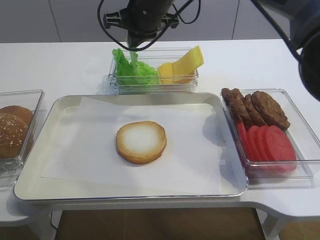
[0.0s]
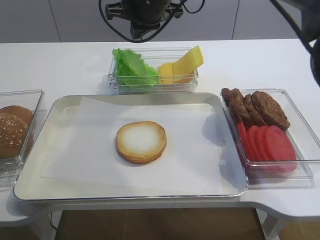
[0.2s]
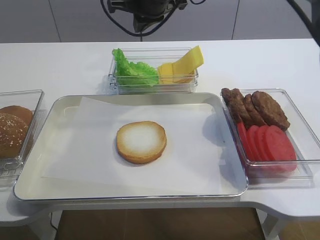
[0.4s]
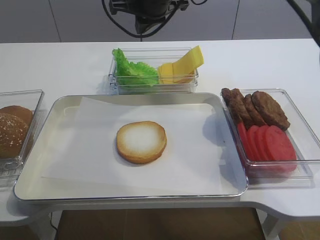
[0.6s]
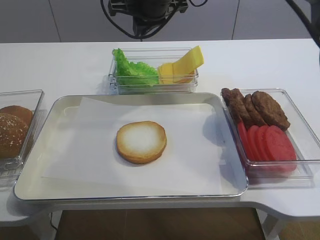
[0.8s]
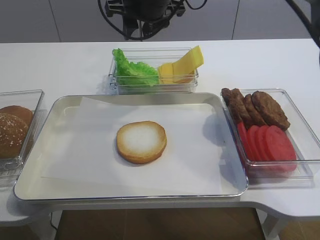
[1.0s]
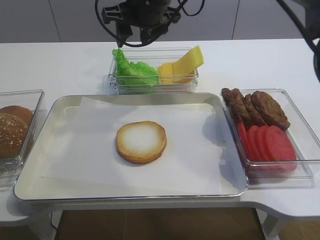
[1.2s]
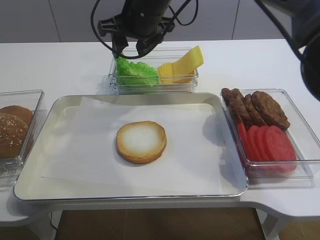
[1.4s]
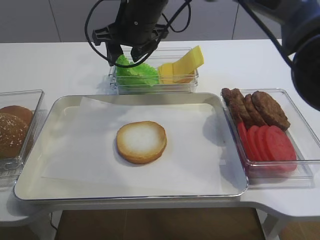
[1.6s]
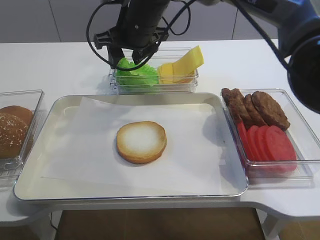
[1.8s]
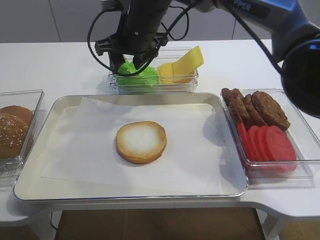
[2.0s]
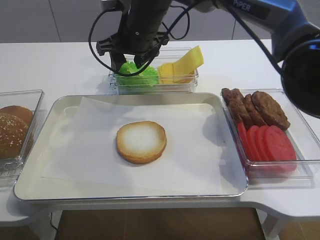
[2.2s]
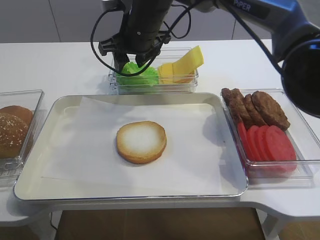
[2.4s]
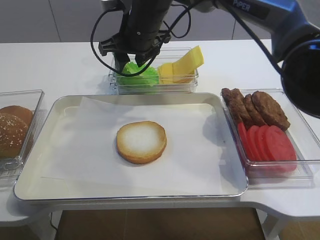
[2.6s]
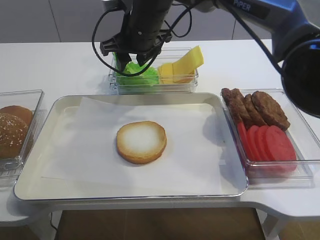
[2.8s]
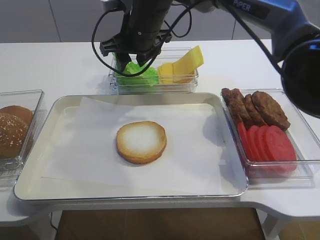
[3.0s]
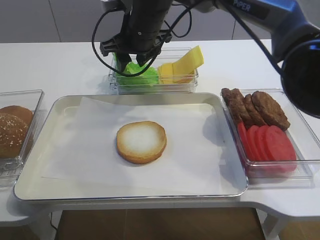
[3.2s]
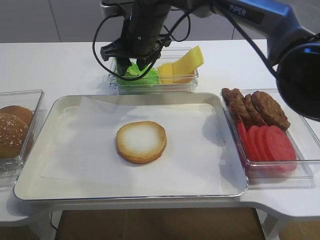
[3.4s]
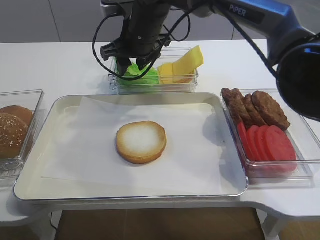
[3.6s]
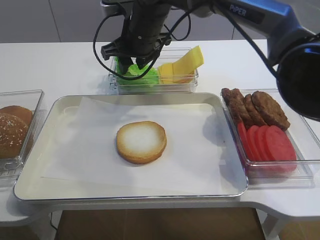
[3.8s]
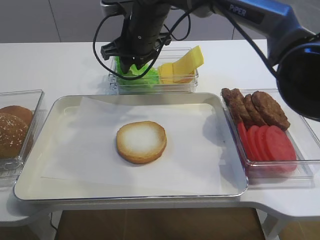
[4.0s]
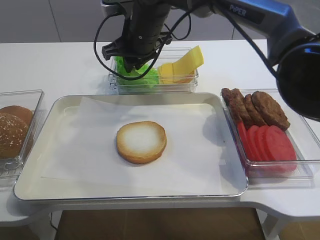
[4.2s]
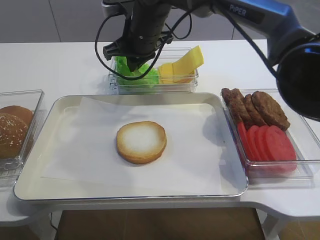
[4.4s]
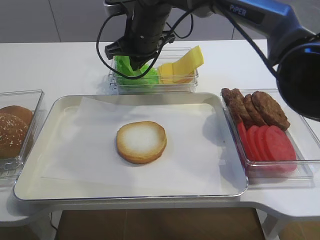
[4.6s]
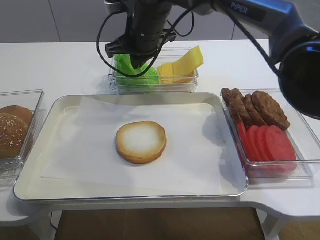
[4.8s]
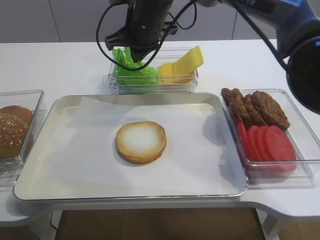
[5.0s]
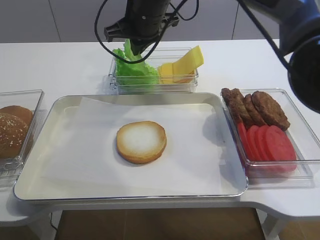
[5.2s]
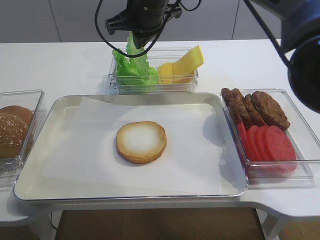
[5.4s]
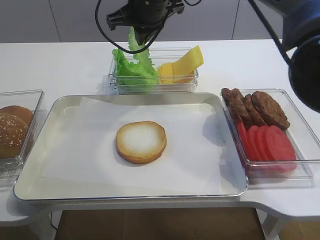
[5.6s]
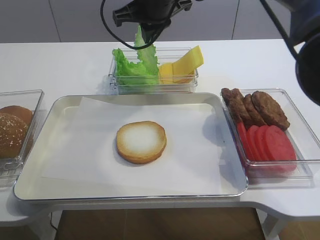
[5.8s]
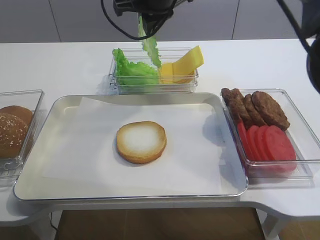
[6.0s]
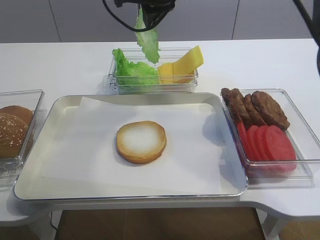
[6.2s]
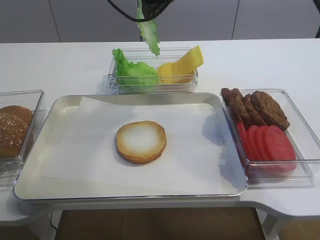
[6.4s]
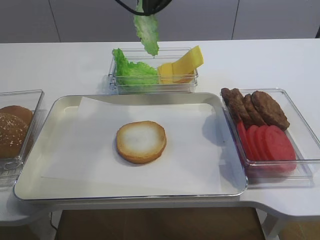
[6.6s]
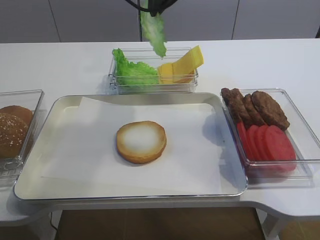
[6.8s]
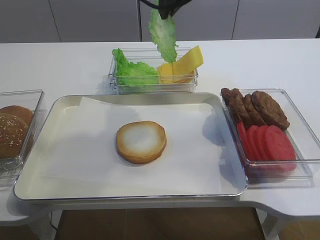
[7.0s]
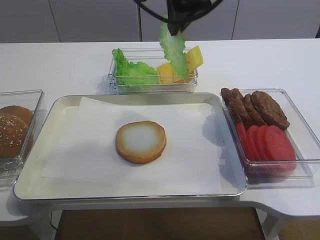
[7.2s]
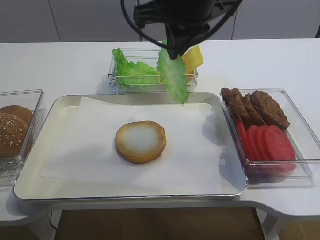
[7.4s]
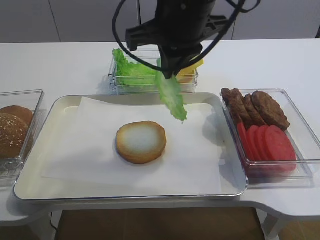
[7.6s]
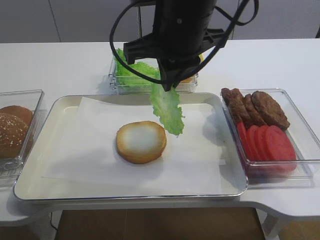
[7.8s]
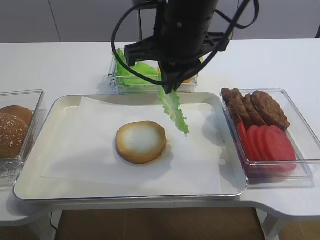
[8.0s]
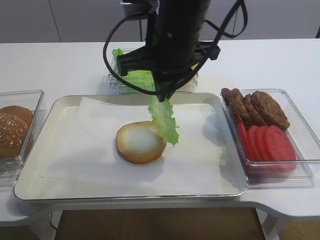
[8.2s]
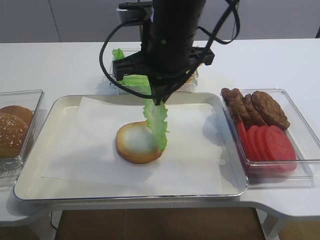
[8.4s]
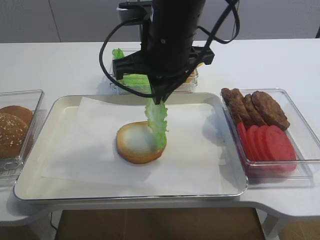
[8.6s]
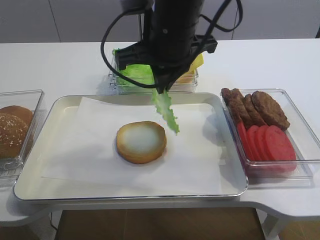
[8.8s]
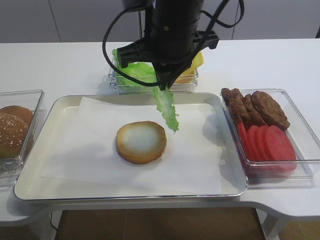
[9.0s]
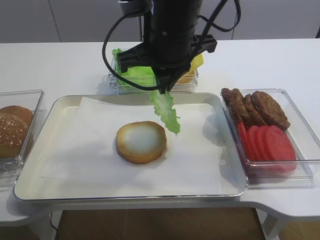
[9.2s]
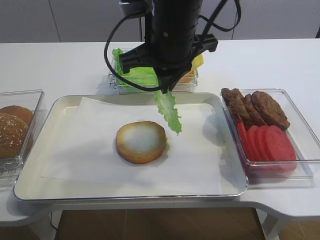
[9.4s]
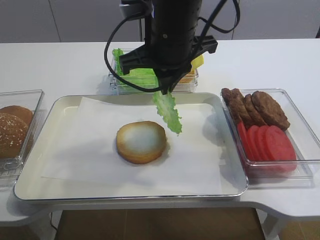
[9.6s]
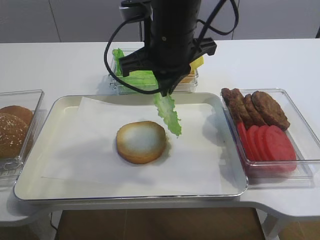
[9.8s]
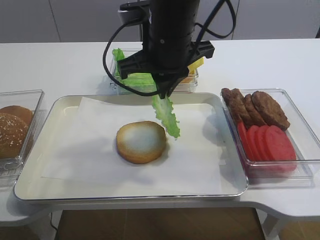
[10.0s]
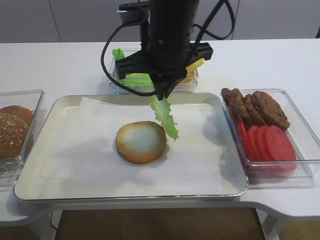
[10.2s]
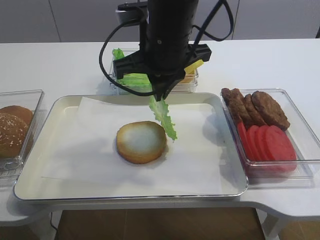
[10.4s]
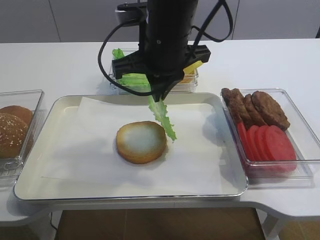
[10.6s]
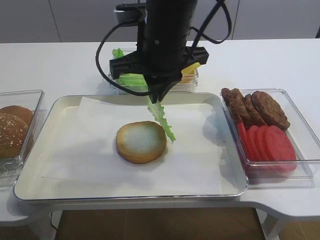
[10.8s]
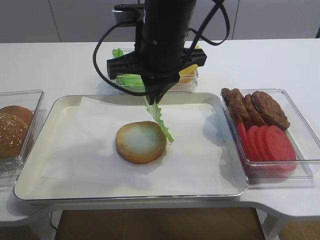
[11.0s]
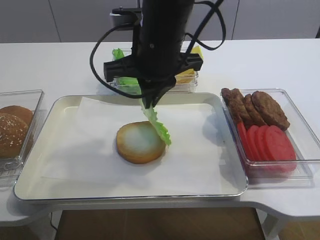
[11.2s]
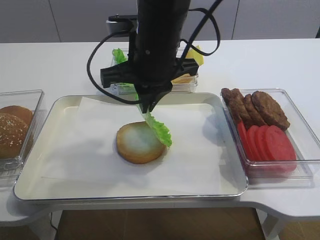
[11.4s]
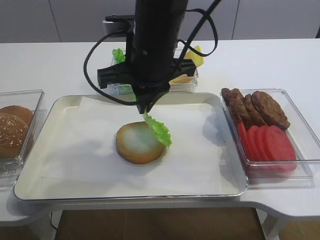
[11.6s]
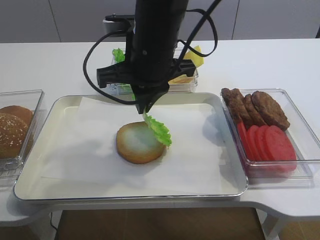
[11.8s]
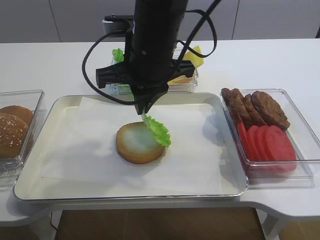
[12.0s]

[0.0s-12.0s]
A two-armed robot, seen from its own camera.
Step, 0.0s to 6.2s: Pick up the lettuce leaf with the right gripper.
0.0s to 1.6s: The right gripper opens.
1.6s to 3.0s: The grippers move only a little.
3.0s to 4.4s: The right gripper closes.
4.4s to 6.0s: The right gripper goes about 10 cm upward.
6.0s to 7.6s: The right gripper is displaced backward by approximately 10 cm.
7.6s to 10.4s: The grippers move only a little.
10.4s to 12.0s: The grippers make only small movements.

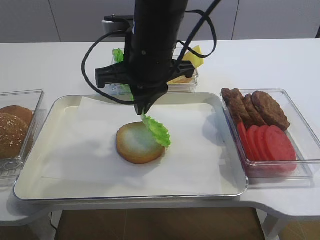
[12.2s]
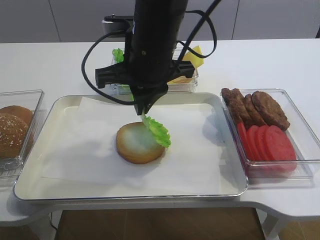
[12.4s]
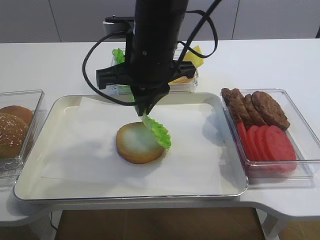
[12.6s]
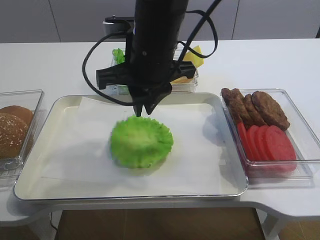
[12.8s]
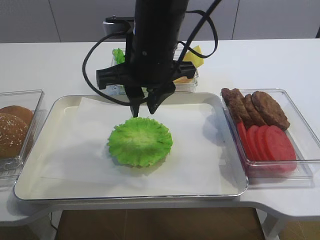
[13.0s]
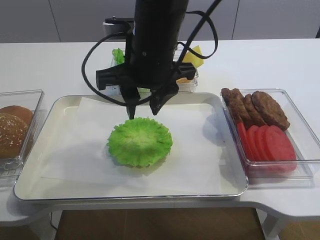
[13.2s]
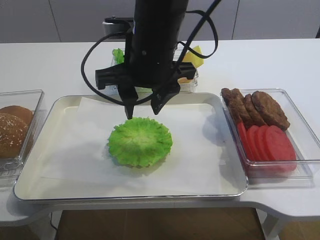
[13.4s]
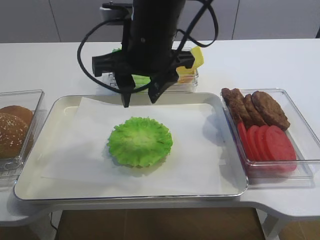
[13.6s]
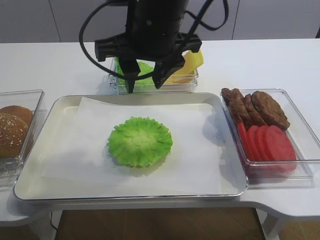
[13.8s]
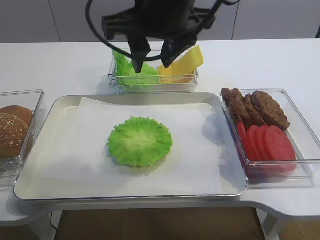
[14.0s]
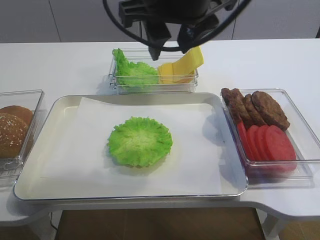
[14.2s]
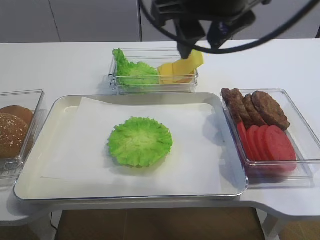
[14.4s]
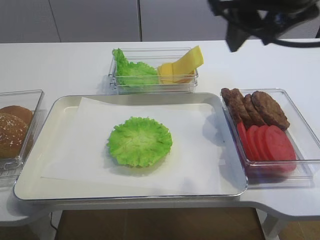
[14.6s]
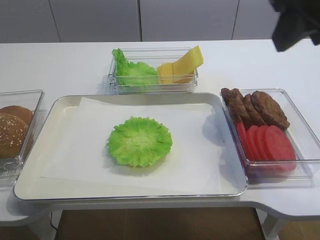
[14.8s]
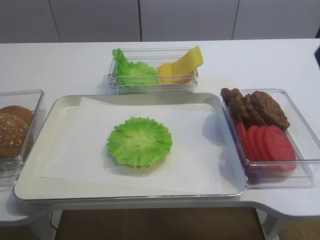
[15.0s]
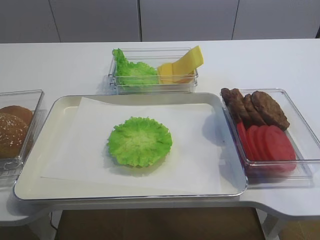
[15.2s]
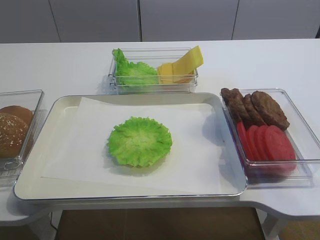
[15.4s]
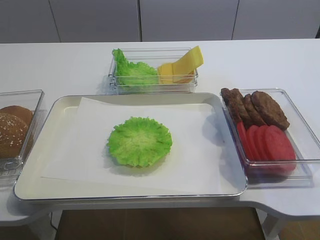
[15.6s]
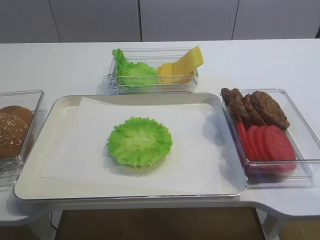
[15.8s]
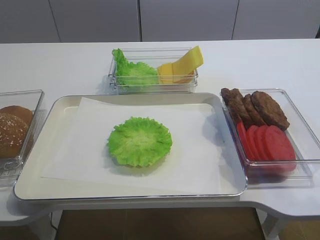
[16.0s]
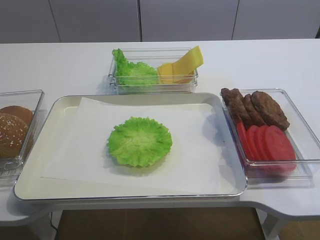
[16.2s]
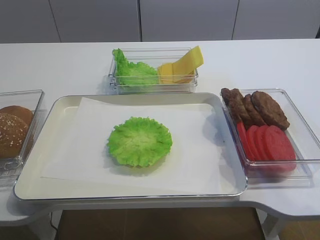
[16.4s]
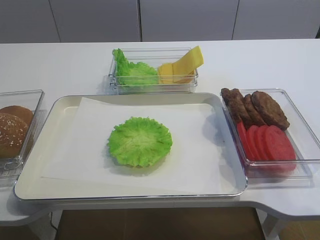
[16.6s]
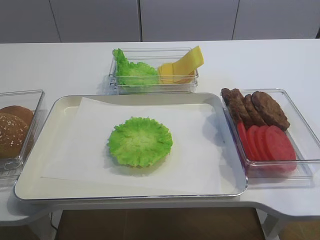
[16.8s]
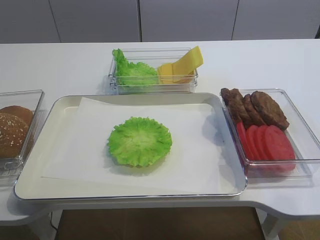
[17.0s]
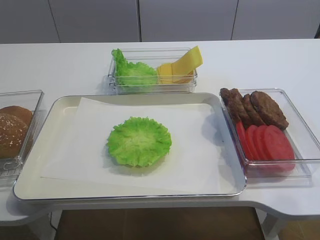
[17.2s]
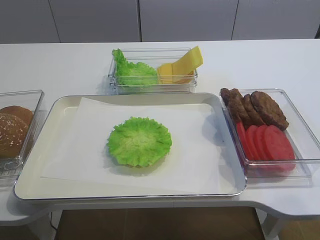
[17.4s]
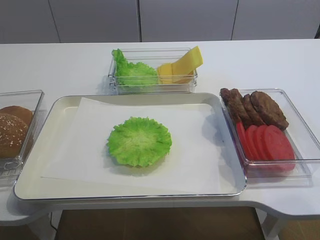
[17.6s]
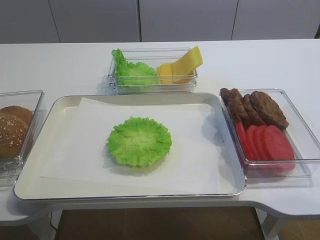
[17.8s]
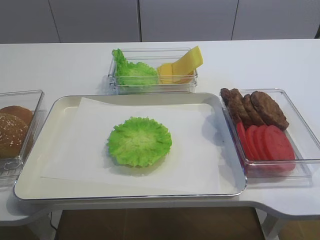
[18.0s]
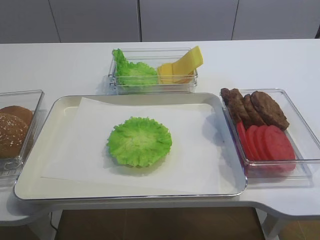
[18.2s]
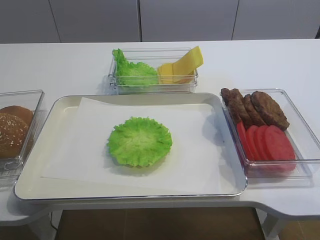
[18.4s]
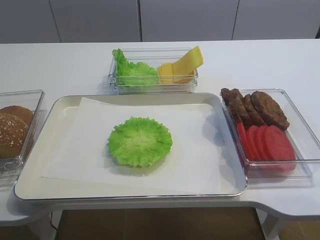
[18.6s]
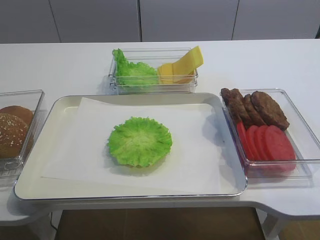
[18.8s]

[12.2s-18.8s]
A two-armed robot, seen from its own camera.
12.2s to 13.8s: The right gripper opens its fingers.
13.8s to 15.4s: The right gripper is displaced to the right and backward by approximately 35 cm.
15.4s to 17.2s: The right gripper shifts approximately 15 cm downward and backward, and closes.

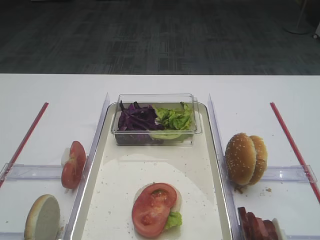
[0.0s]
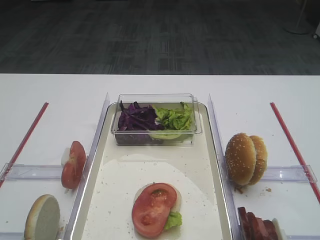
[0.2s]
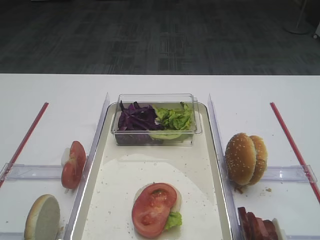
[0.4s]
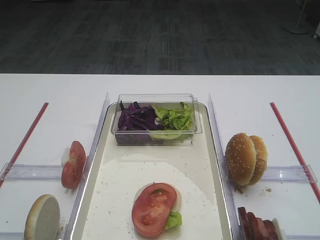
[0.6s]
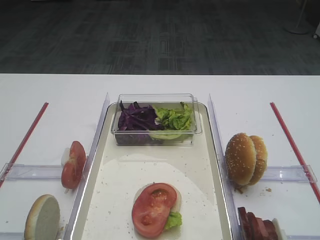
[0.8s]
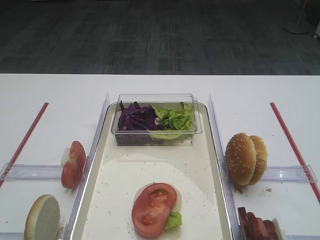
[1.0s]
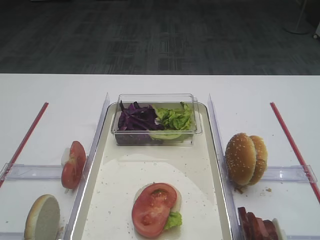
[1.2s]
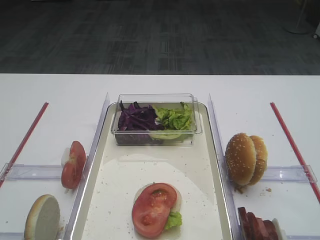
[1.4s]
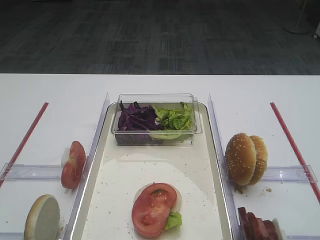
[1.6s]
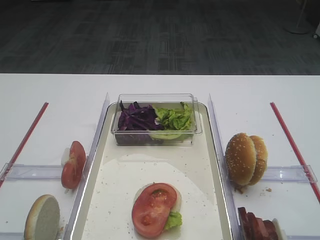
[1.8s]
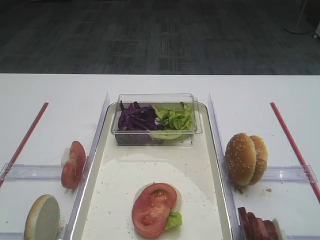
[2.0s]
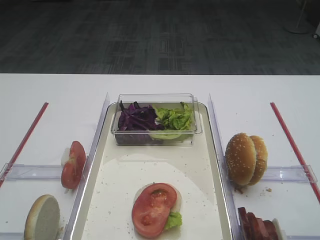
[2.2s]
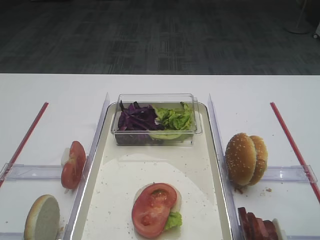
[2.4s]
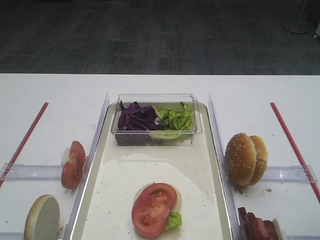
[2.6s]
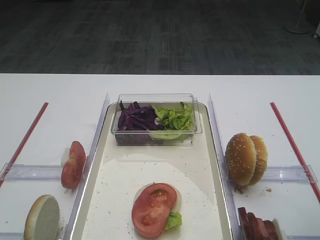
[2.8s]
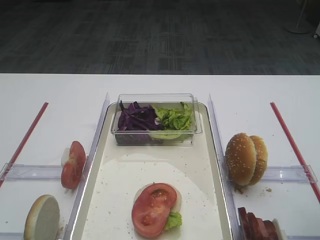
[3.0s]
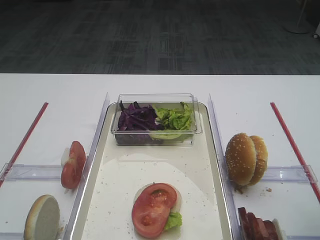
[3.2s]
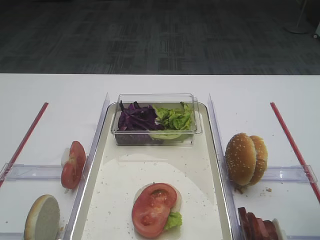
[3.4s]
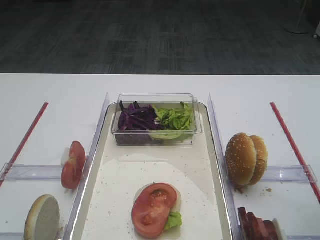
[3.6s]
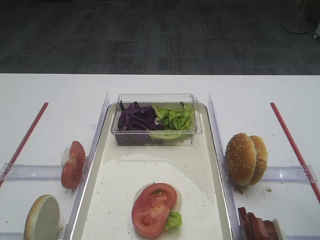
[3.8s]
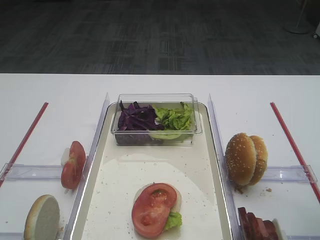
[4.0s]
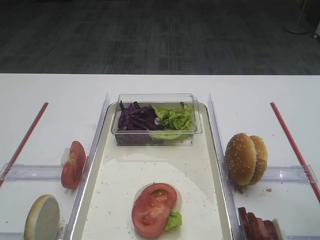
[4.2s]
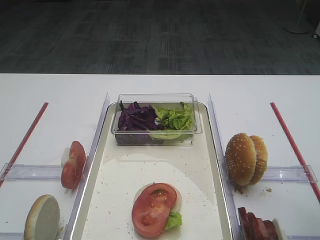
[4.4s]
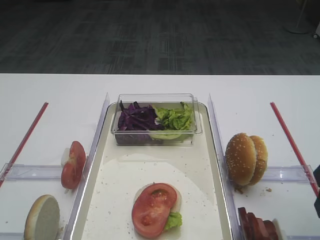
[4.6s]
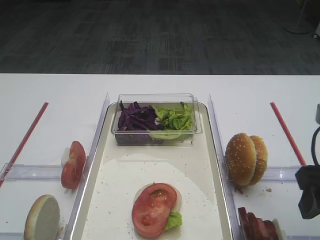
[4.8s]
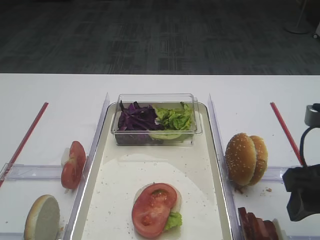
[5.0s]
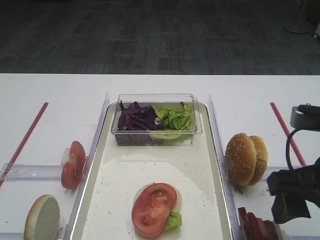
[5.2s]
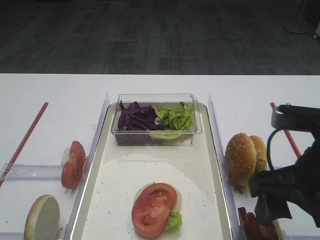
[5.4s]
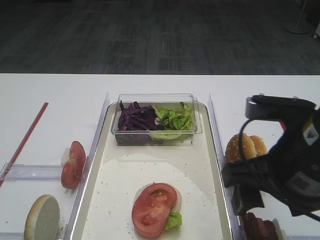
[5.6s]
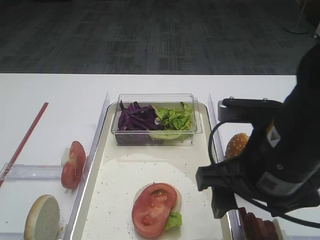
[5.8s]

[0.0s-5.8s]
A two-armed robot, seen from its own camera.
4.4s to 5.8s: The right gripper moves to the left, approximately 15 cm.
